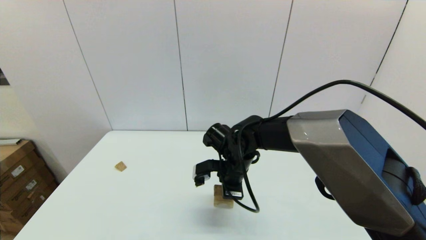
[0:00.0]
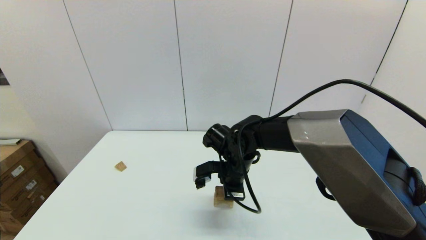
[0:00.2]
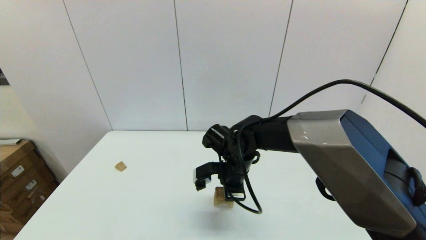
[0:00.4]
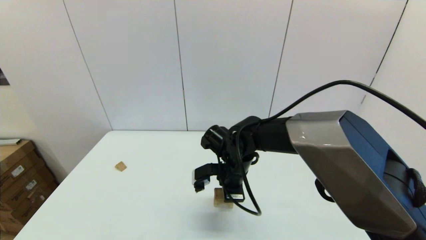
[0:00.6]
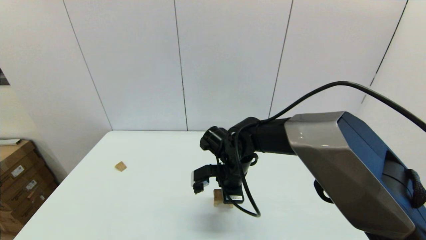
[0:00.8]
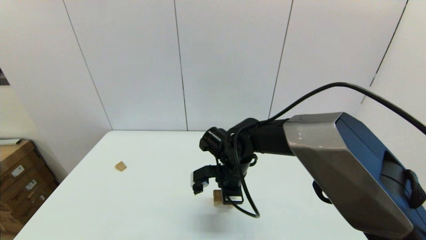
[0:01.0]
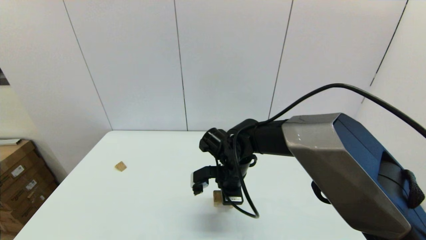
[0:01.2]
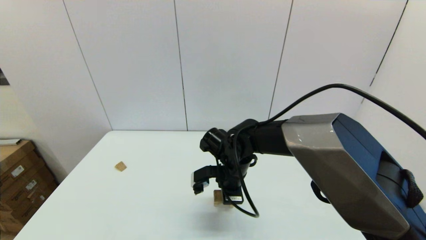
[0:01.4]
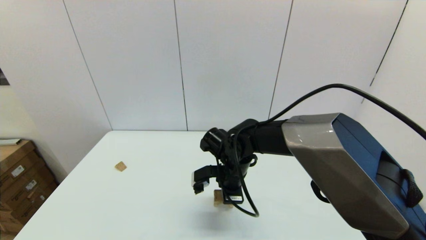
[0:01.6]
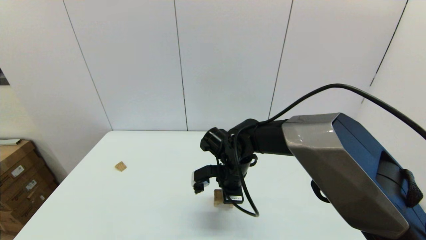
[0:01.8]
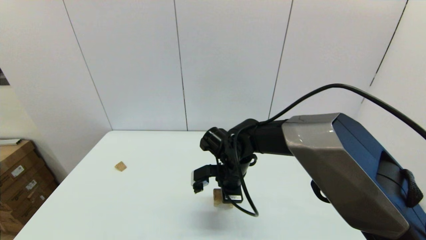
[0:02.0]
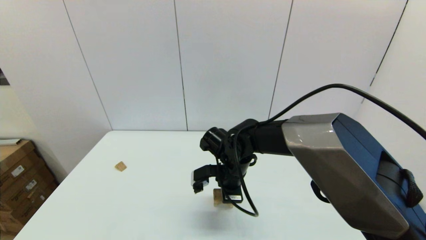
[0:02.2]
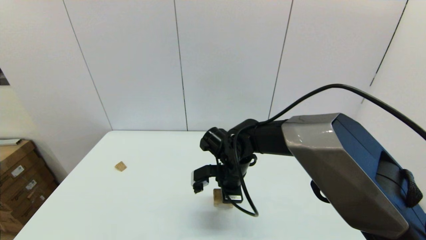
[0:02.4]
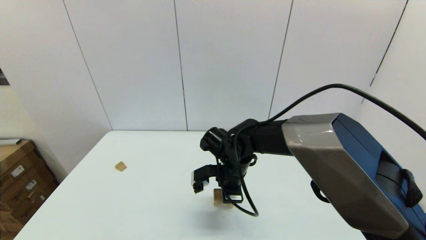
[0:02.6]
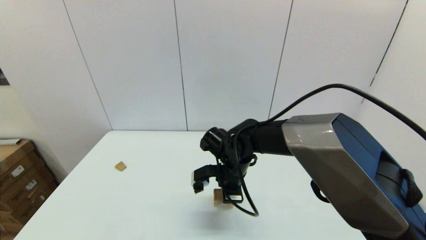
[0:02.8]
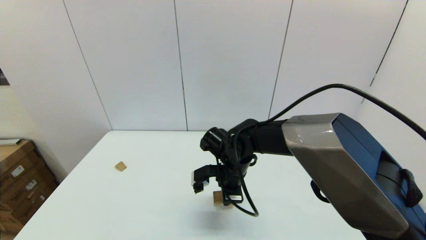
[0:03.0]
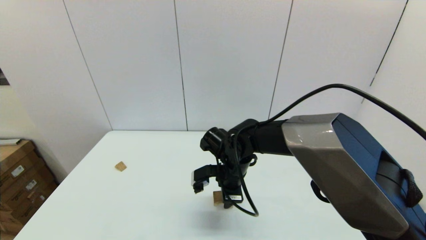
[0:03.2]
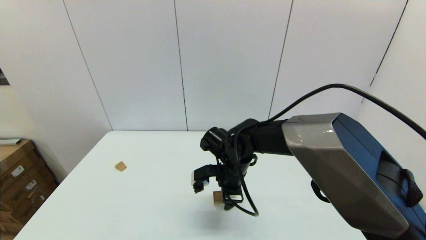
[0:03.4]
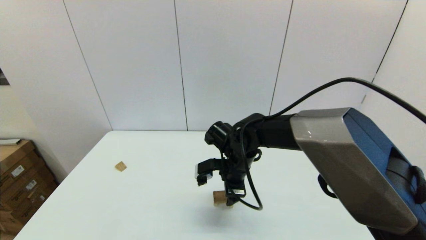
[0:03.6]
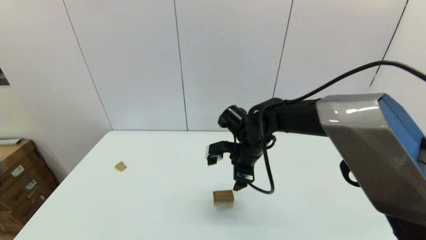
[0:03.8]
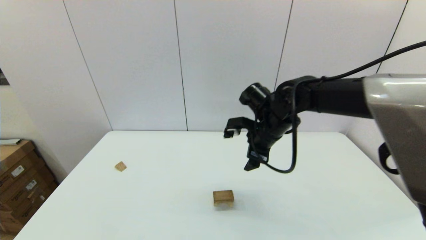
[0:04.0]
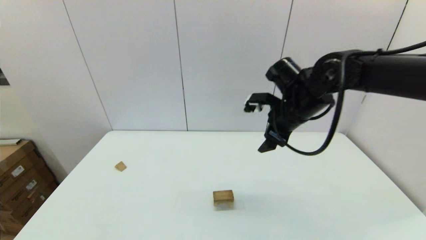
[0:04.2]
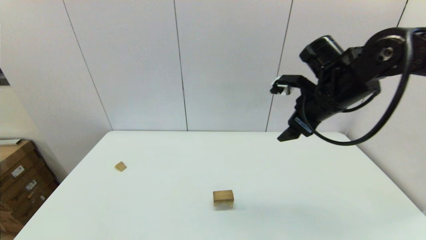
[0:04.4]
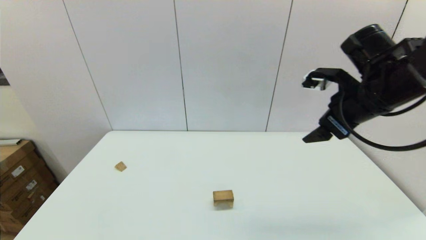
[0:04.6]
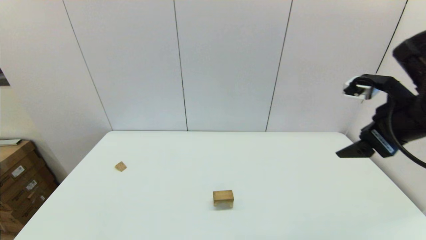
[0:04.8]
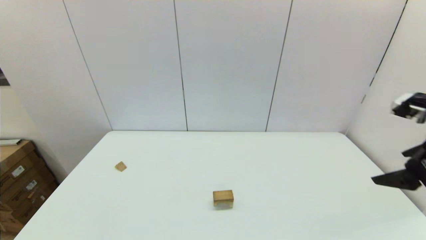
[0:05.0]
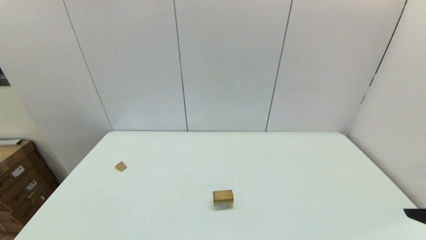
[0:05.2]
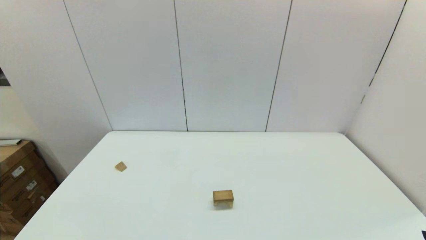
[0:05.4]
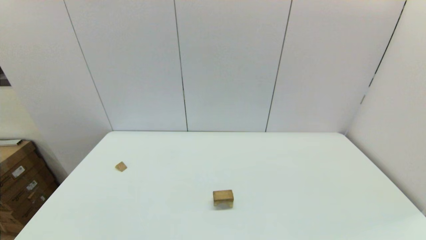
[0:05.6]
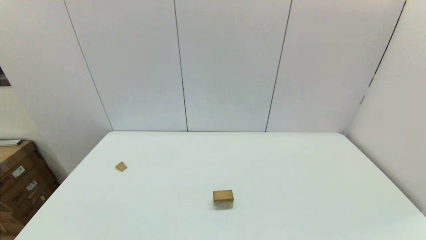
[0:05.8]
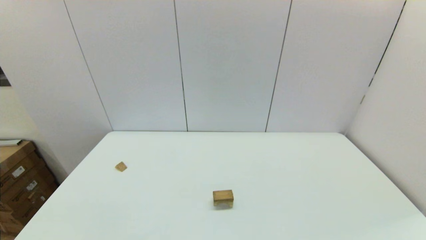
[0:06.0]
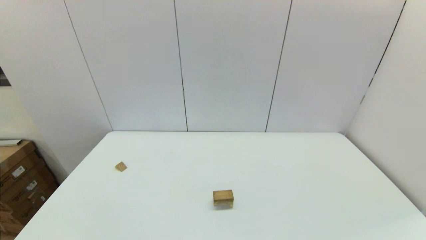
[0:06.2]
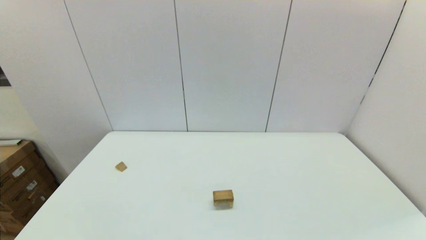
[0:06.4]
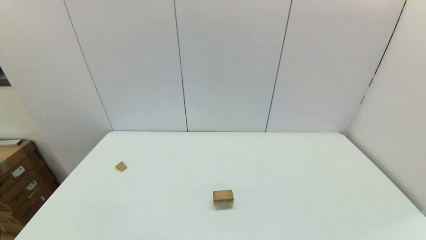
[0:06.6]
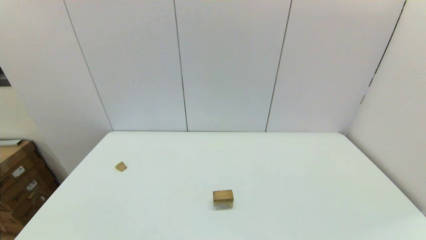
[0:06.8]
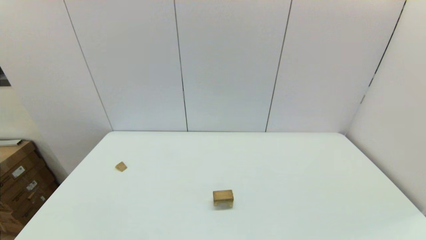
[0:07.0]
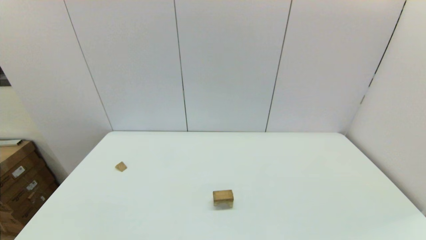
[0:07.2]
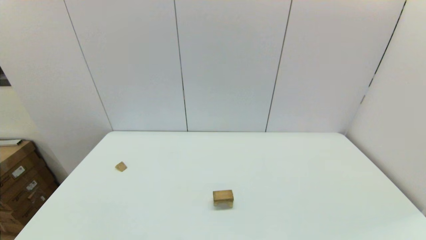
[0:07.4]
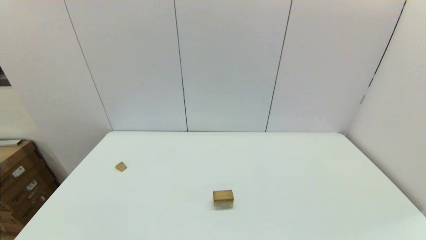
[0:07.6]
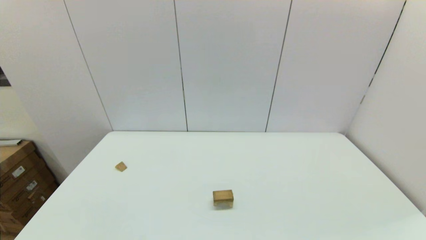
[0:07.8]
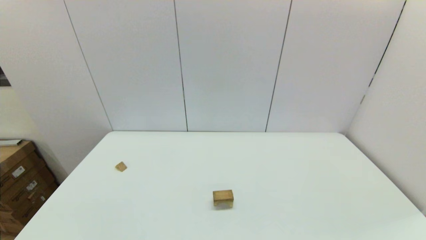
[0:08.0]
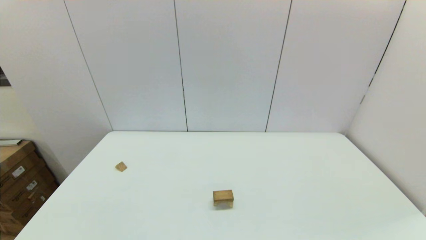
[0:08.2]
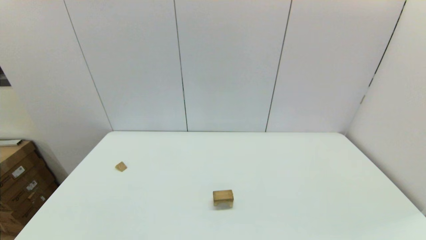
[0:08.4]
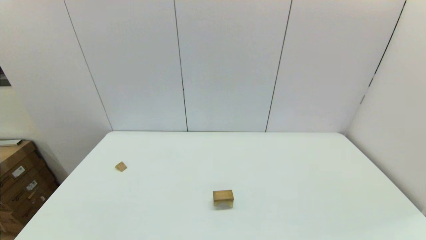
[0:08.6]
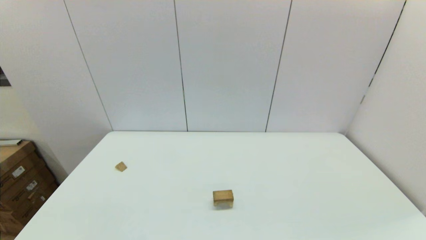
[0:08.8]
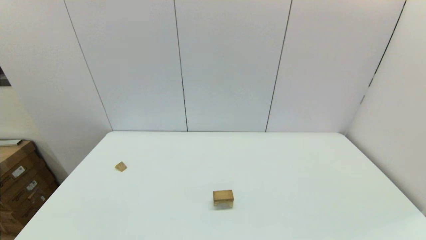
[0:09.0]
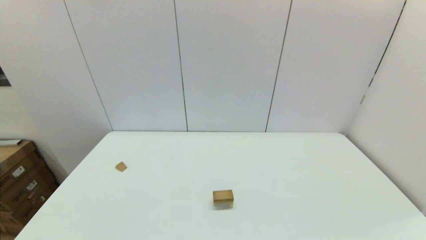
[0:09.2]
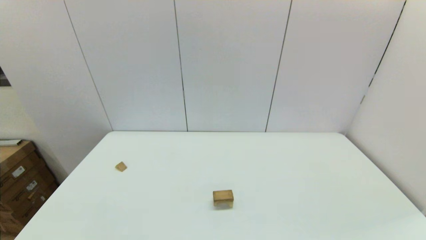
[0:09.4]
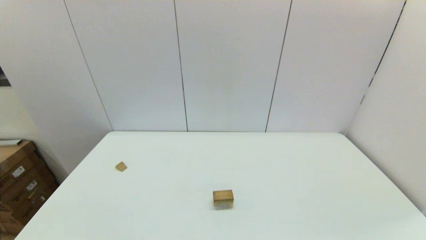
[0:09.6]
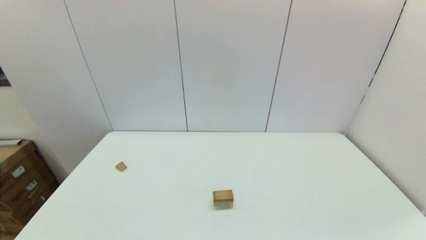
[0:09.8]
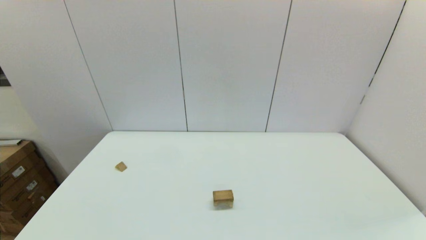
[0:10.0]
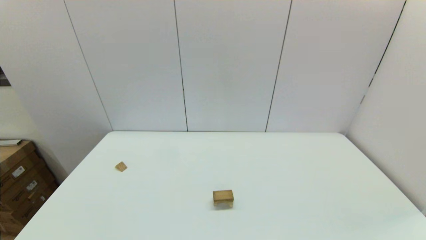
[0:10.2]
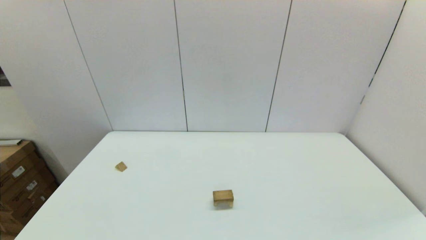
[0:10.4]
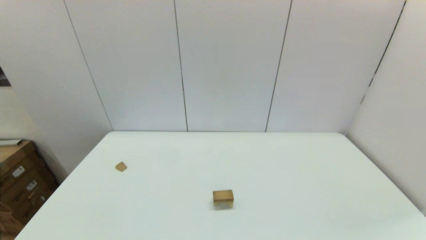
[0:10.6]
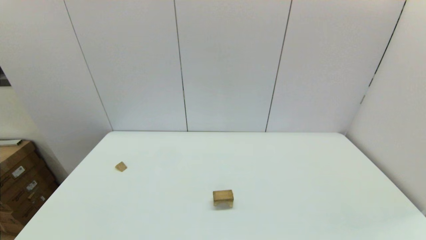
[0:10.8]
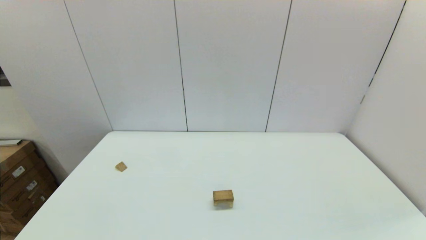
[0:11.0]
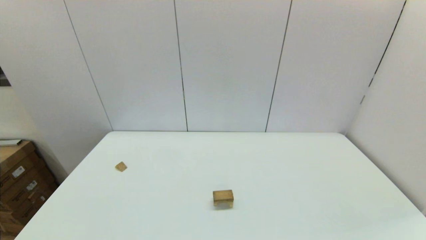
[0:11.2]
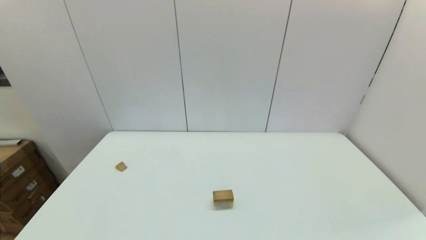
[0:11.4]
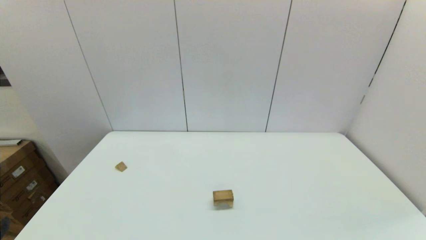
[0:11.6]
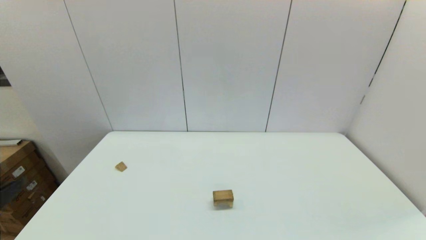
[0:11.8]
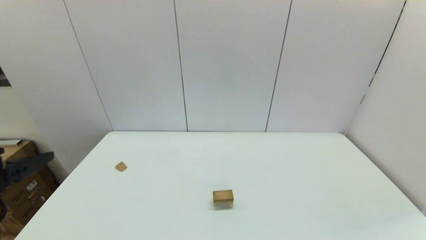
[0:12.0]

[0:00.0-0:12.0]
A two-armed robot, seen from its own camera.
Task of the whole recording: place the arched building blocks in the center of the table, set up the rectangular building blocks, and then set up the triangular building blocks.
Step, 0:00.0 to 0:03.2: Place the box-shaped block onto the arch-shaped block with the right gripper.
0:00.0 to 0:01.6: Neither gripper changes place.
0:03.0 to 0:04.4: The right gripper moves upward and to the right, some 25 cm, and opens.
0:04.4 to 0:06.0: The right gripper travels backward and downward by some 35 cm.
0:07.6 to 0:10.4: Both grippers stay put.

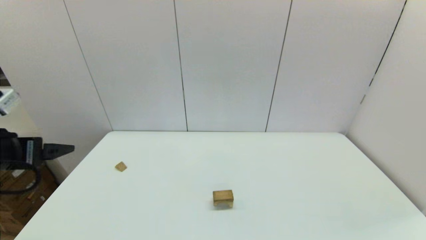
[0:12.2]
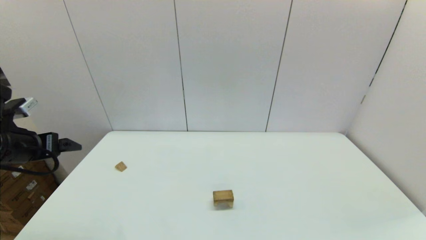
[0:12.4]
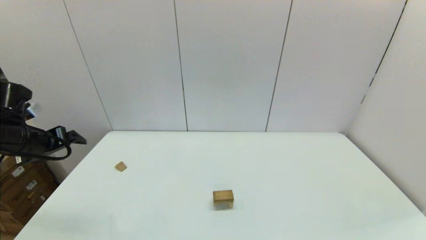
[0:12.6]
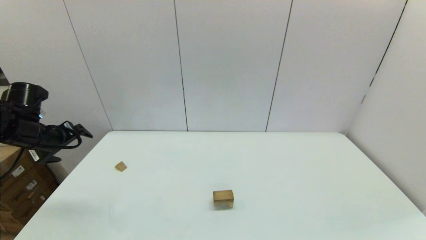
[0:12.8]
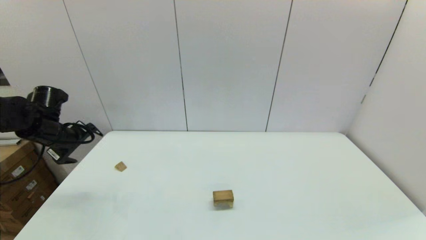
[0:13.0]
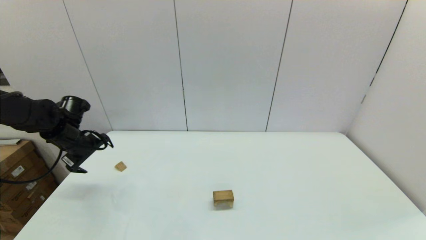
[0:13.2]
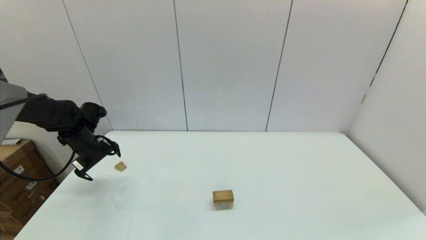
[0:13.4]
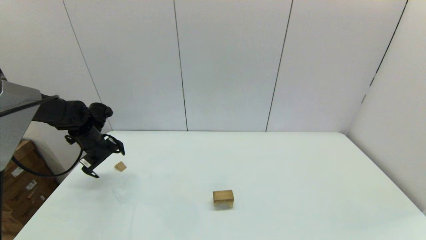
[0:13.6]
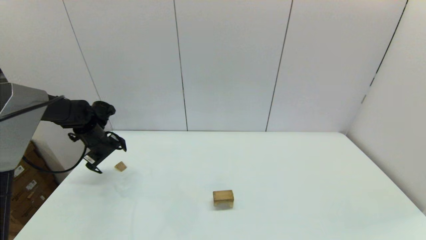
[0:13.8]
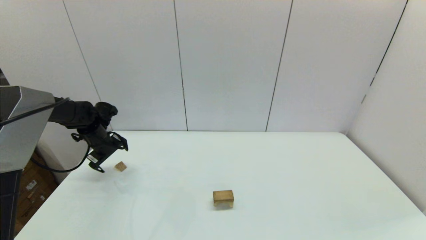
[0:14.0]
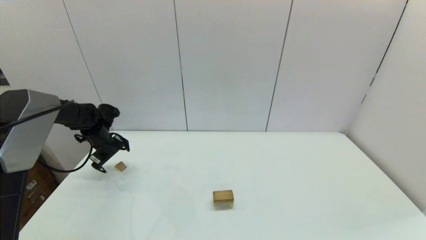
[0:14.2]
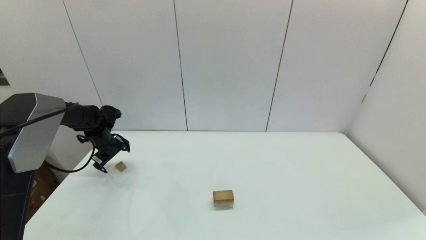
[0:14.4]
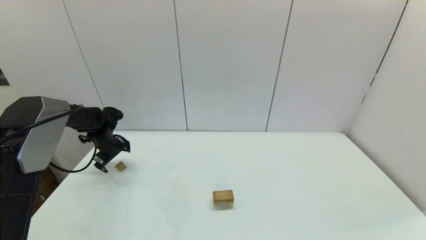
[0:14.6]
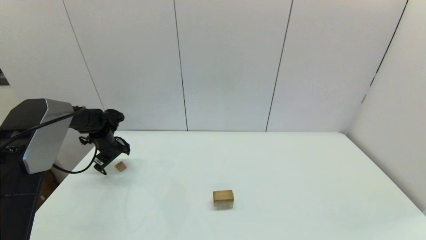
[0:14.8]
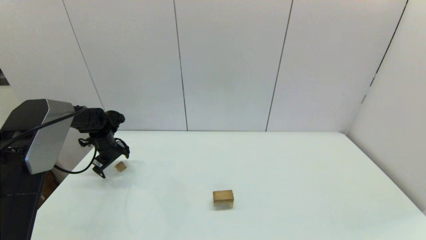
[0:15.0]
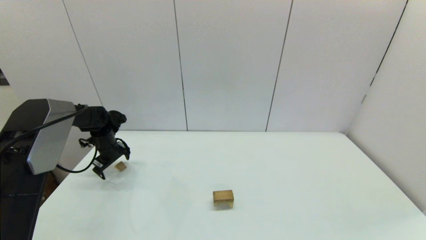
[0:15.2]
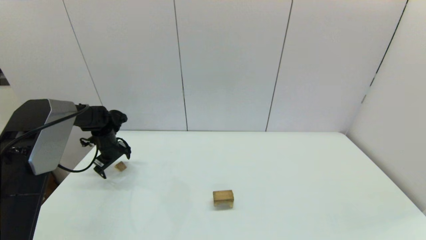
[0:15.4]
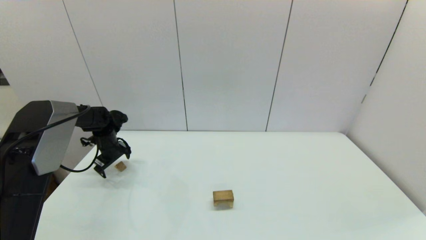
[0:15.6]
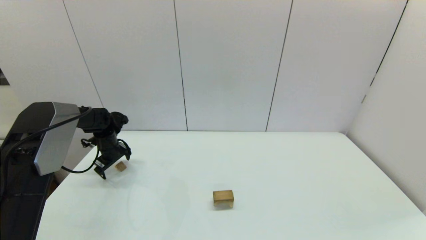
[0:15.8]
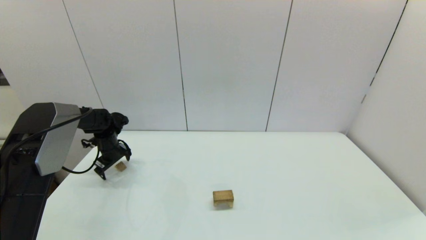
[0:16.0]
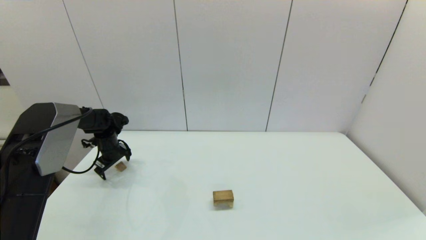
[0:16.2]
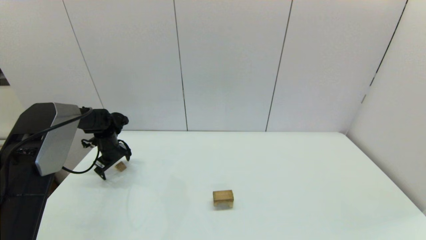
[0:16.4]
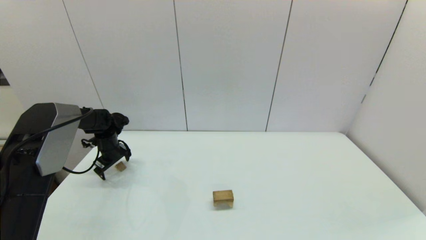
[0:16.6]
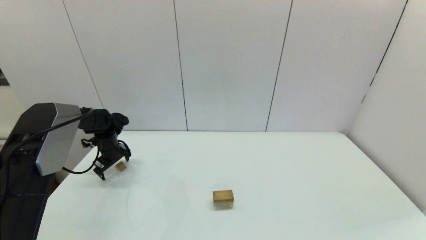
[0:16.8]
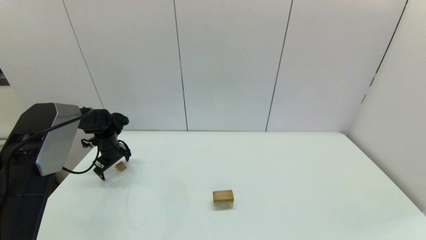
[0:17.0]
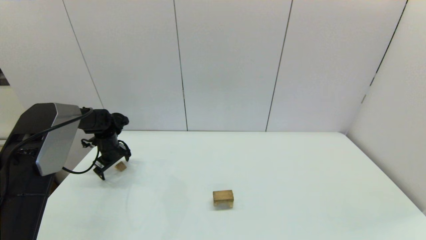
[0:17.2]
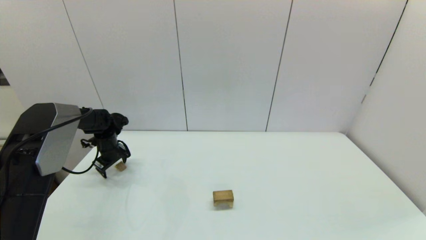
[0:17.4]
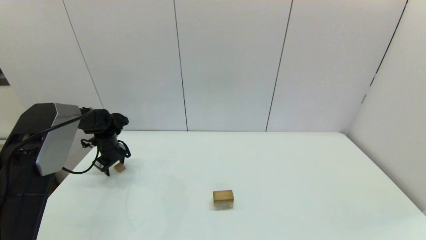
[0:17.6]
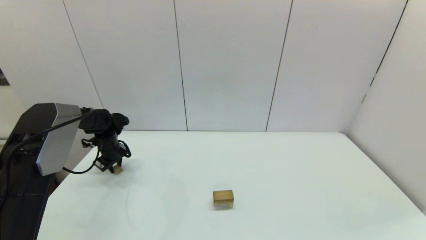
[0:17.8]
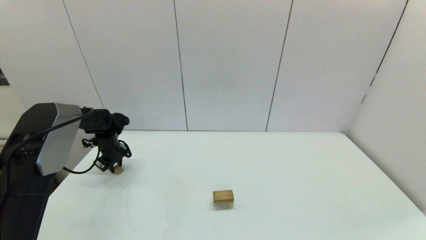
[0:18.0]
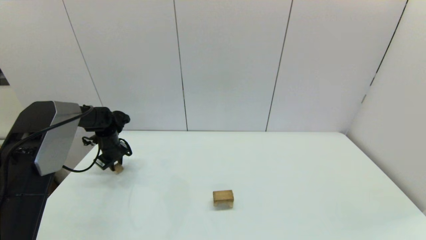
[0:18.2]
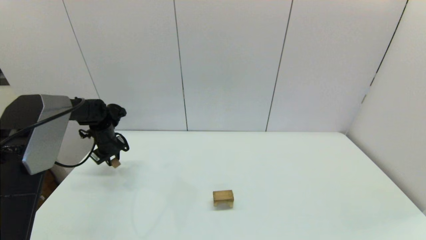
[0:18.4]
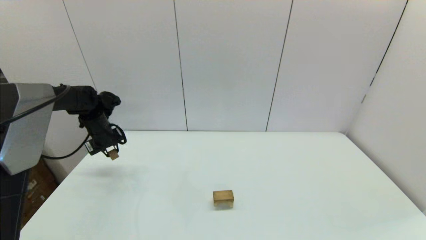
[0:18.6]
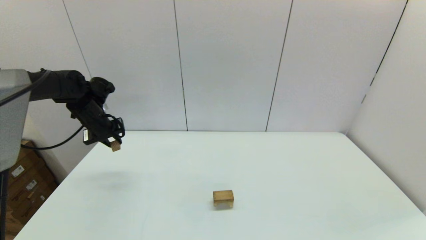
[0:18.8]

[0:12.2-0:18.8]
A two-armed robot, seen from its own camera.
Task of the whole recording: place the arched building blocks in the center of the table, set up the rectangular building blocks, and then set up the triangular building blocks.
Step, 0:12.2 to 0:17.8: Grasp the triangle-shaped block with the left gripper.
0:12.2 to 0:13.8: The left gripper shifts some 30 cm forward and downward.
0:13.8 to 0:15.4: The left gripper ends up about 5 cm from where it was.
0:15.4 to 0:17.2: The grippers stay close to where they were, moving slightly.
0:17.2 to 0:18.8: The left gripper shifts approximately 15 cm upward, and closes its fingers.
